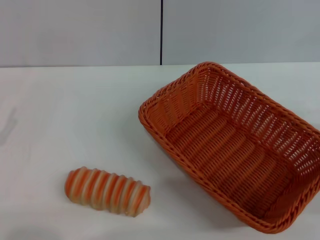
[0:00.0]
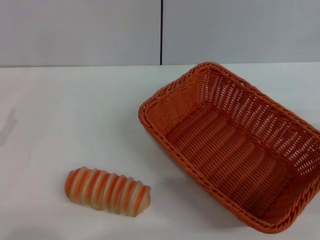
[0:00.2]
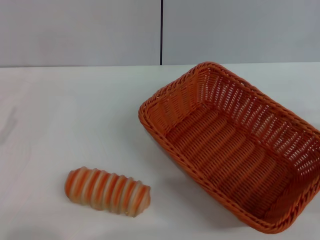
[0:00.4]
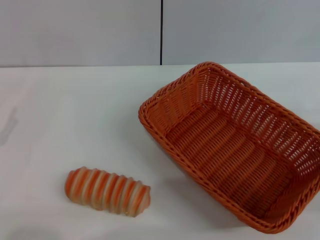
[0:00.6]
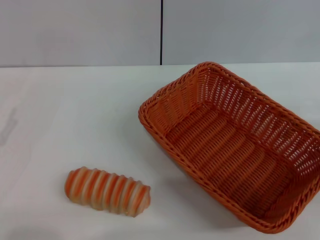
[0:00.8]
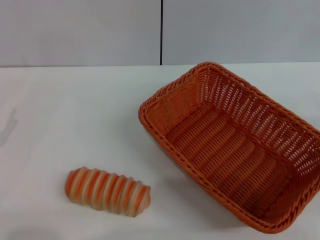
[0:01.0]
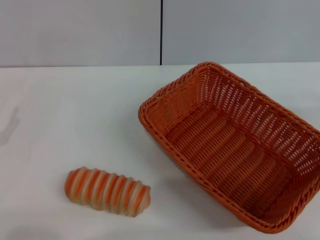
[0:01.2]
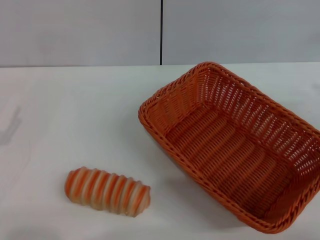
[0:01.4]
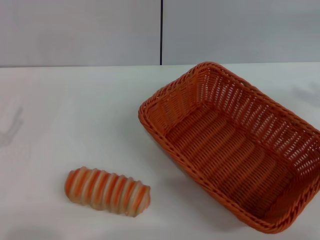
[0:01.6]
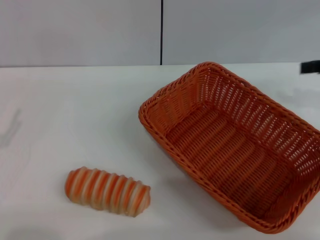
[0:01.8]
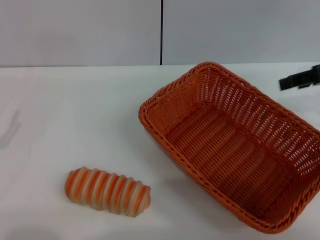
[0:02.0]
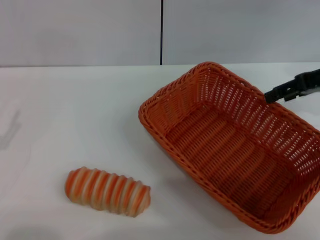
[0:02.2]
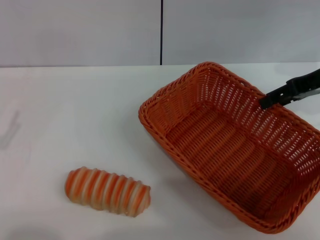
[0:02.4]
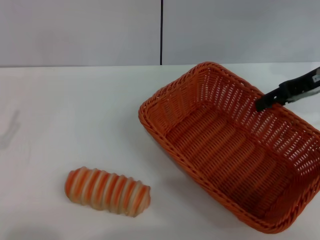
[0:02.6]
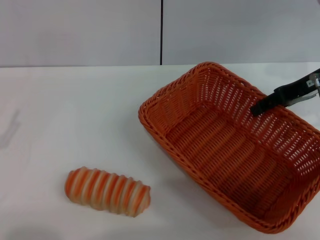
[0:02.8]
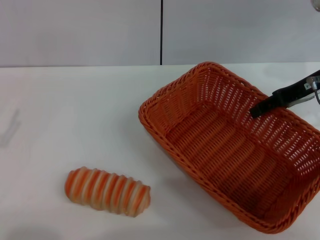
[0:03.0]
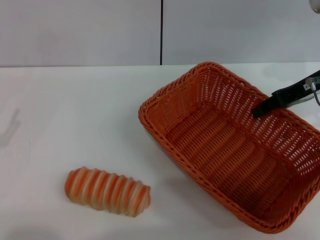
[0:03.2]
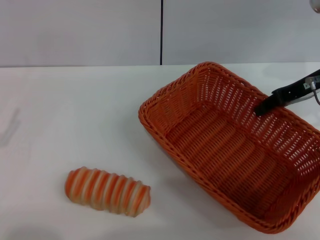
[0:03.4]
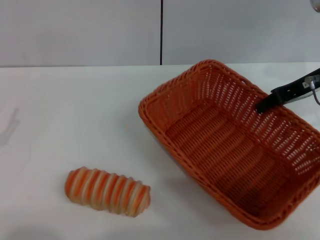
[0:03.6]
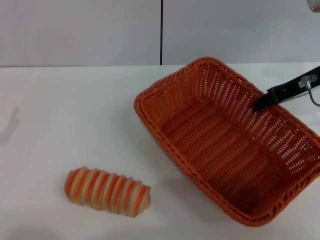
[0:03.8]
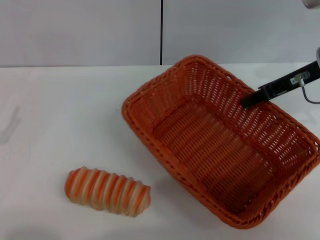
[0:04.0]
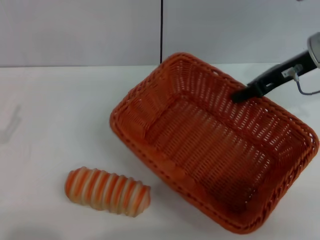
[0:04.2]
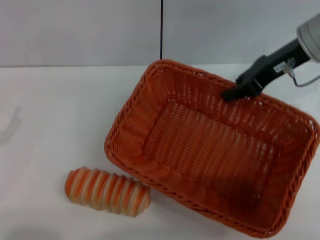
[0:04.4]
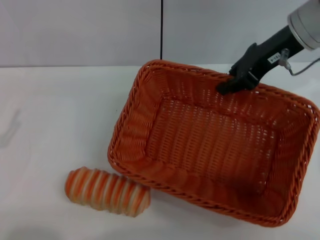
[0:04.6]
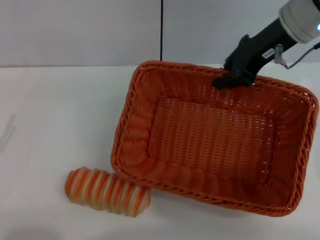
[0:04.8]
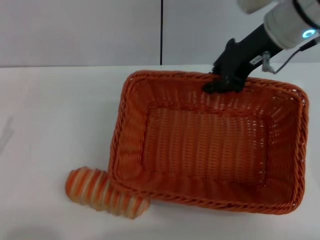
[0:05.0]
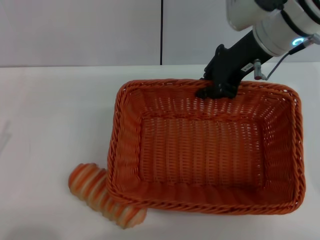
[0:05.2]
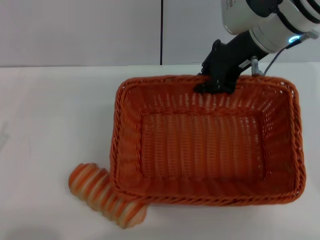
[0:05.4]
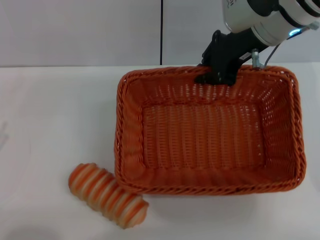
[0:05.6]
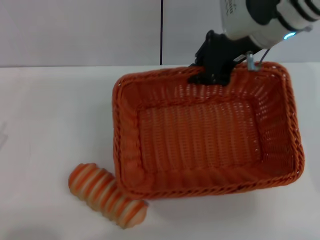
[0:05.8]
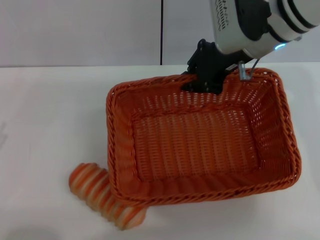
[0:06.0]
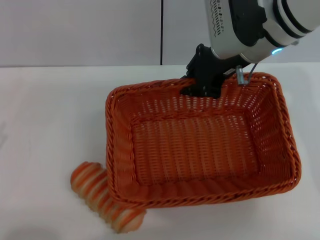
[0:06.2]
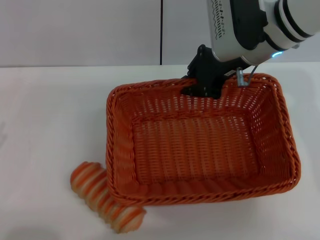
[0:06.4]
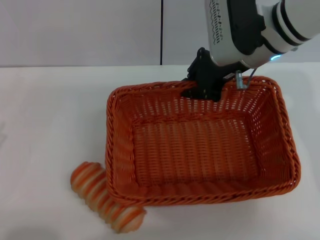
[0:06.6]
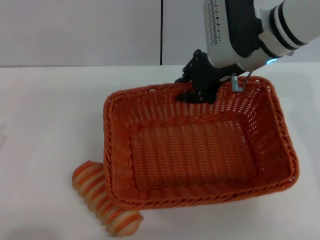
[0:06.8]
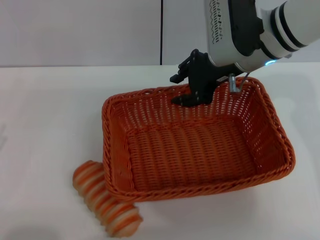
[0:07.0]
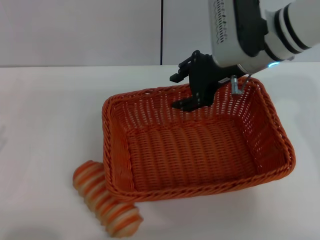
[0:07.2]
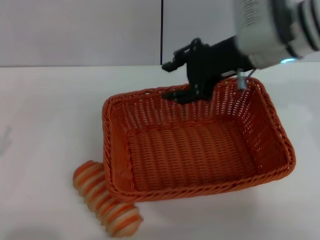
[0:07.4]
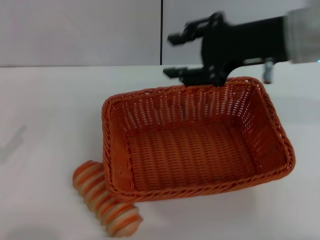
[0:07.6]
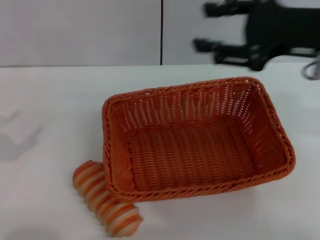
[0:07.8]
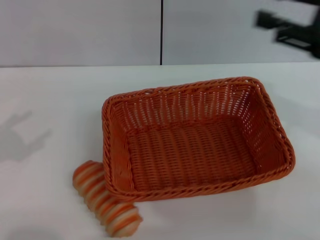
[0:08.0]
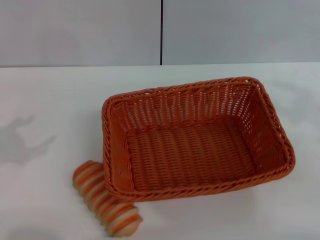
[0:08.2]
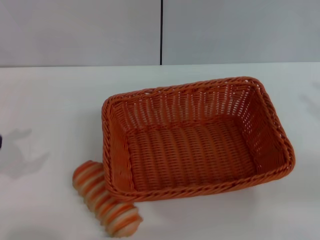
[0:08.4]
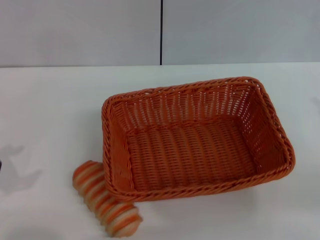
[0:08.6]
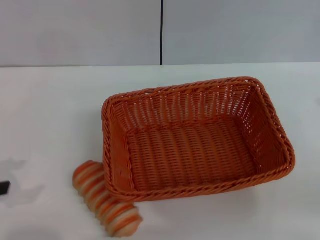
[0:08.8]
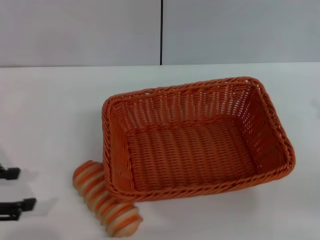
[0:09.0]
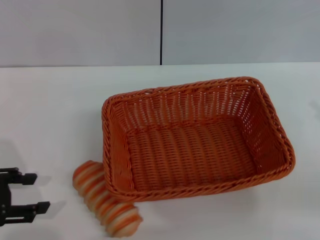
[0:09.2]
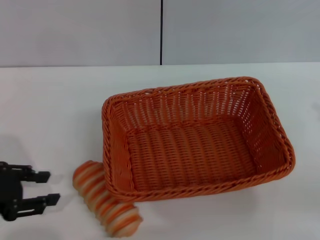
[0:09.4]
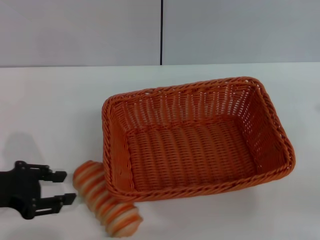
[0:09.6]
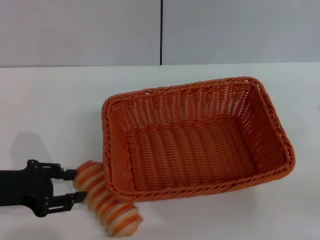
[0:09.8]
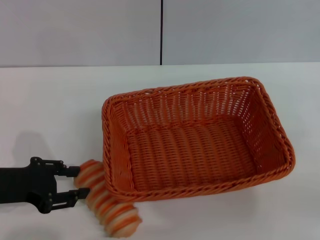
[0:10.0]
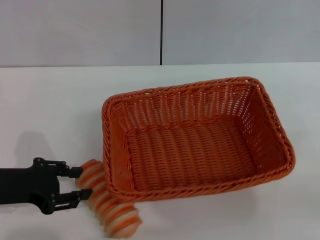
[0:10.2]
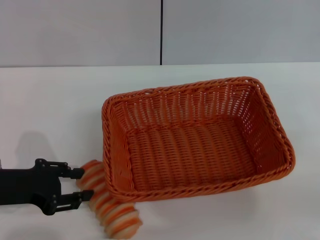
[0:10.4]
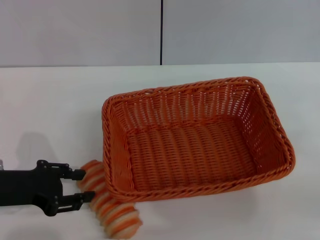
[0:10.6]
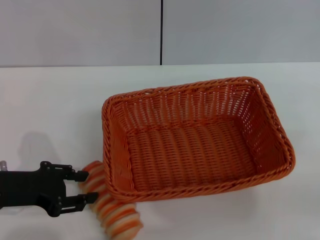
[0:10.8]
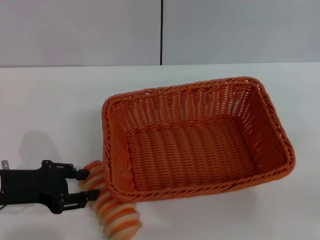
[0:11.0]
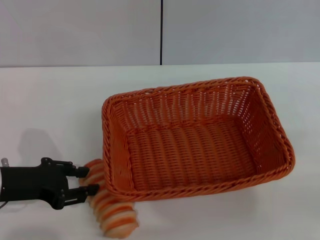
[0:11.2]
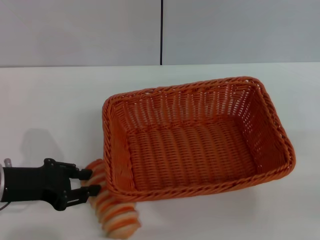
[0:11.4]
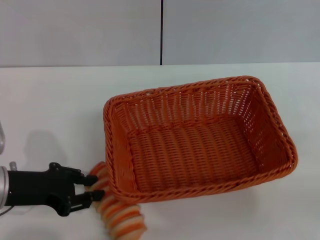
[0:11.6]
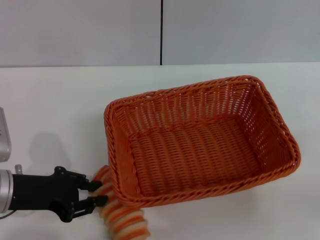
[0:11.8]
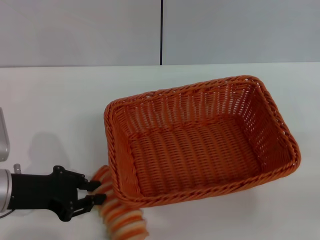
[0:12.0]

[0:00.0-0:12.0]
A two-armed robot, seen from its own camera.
Step, 0:00.0 to 0:04.4: Pick up the light basket with the right gripper.
Step, 0:04.6 to 0:07.6: Place the light basket in the center of view with the right gripper.
0:01.6 to 0:03.0: The right gripper moves to the left and forward, about 15 cm.
0:03.0 to 0:04.4: The right gripper is displaced to the left by some 5 cm, and closes.
0:04.4 to 0:06.0: The right gripper heads to the left, covering approximately 10 cm.
0:06.0 to 0:07.6: The right gripper travels backward and to the right by about 10 cm, and opens its fingers.
0:07.6 to 0:09.0: The right gripper shifts roughly 25 cm to the right, backward and downward. The left gripper travels upward by about 5 cm.
0:09.0 to 0:10.4: The left gripper travels to the right by approximately 5 cm.
0:10.4 to 0:12.0: The grippers stay close to where they were, moving slightly.

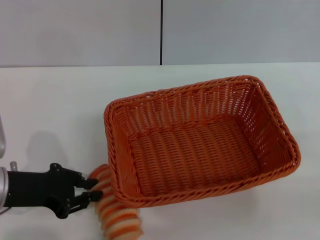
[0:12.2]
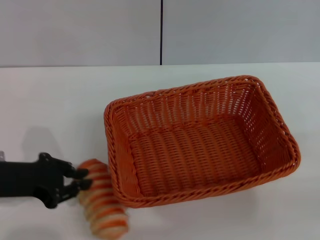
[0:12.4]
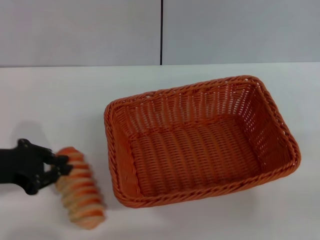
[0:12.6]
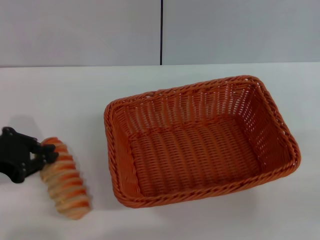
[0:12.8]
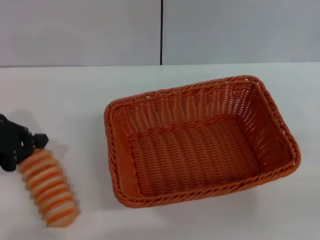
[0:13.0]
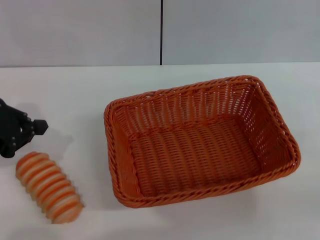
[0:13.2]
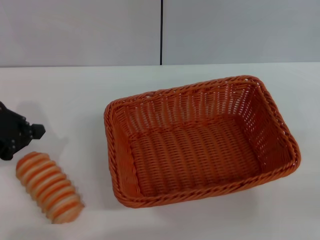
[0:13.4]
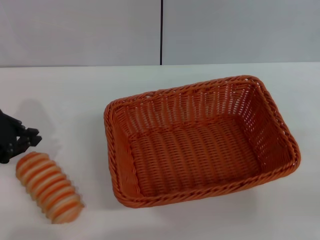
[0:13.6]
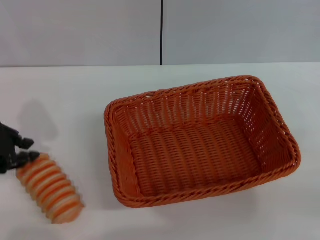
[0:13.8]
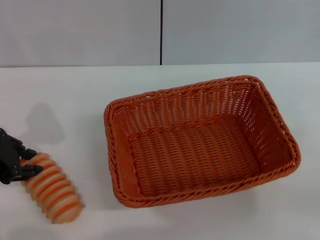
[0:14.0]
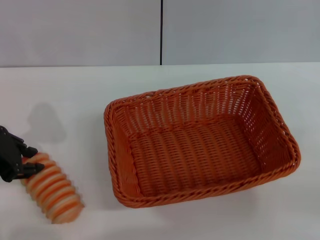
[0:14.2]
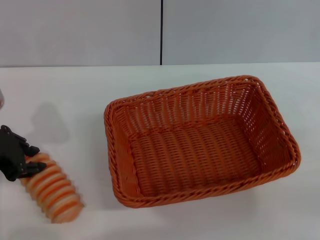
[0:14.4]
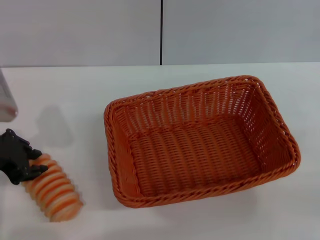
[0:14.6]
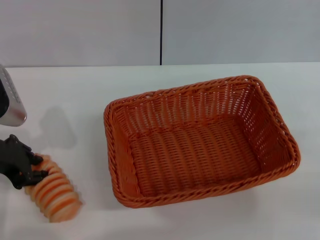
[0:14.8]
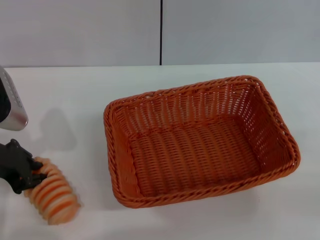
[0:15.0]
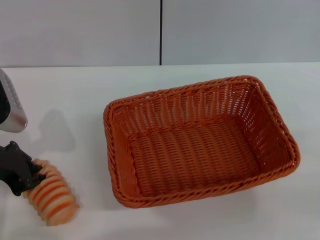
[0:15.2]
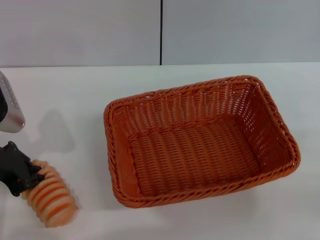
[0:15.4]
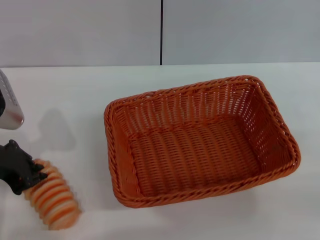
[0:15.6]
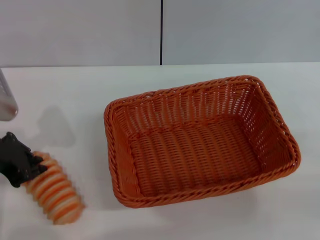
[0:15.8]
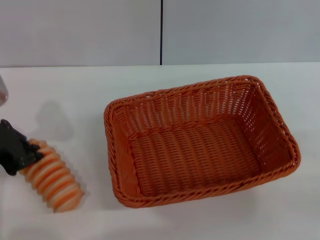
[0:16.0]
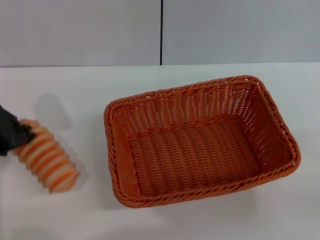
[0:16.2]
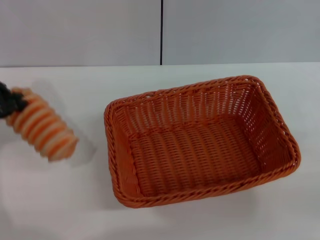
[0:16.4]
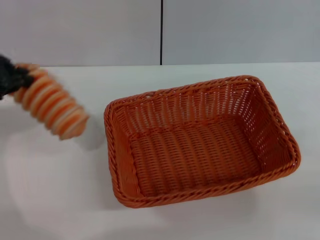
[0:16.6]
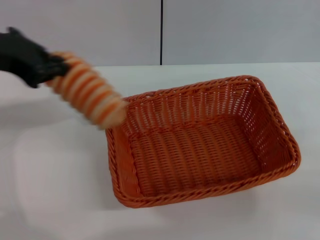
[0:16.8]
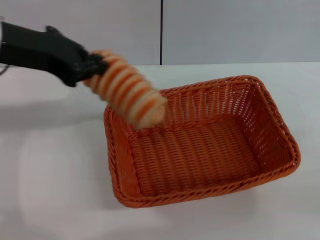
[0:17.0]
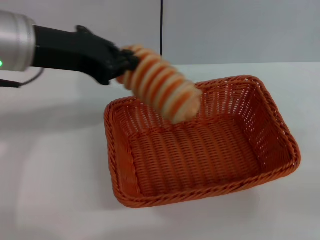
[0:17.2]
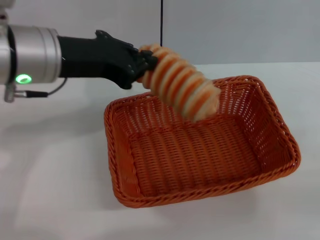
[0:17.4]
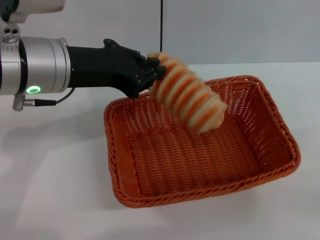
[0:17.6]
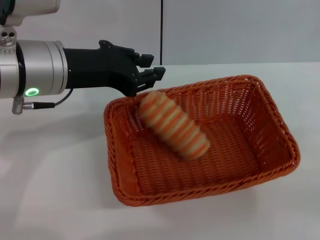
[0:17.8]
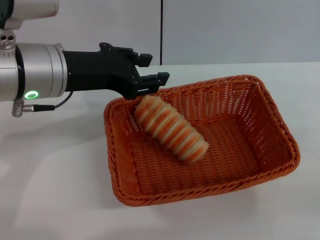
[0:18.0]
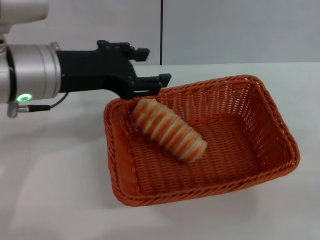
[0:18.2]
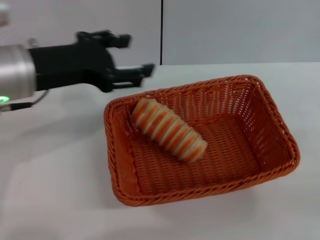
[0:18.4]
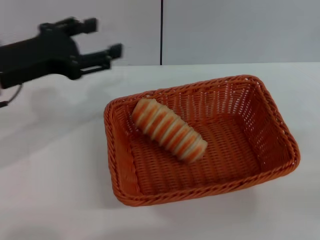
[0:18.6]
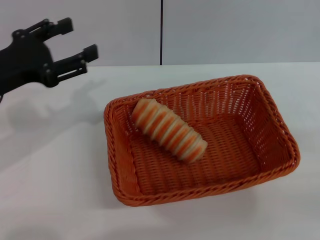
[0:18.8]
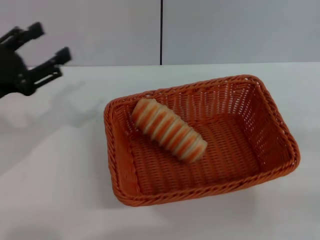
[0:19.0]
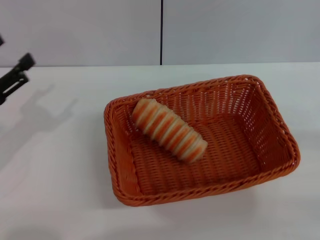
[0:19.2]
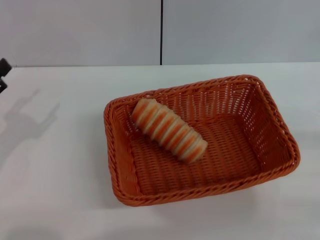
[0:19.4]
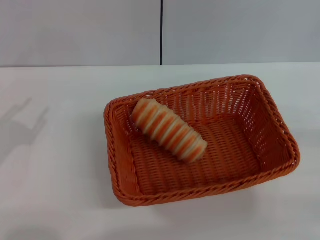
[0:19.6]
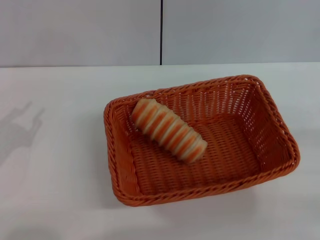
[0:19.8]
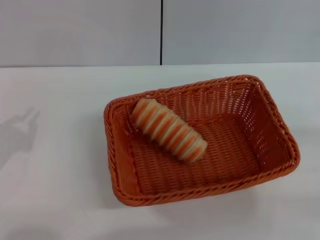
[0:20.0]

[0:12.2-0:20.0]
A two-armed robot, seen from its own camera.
Step, 0:12.2 to 0:16.2: Pick up the long bread with the left gripper.
Step, 0:16.4 to 0:18.4: Place the long bread into the light basket with the left gripper.
0:12.2 to 0:13.8: The left gripper goes roughly 10 cm upward.
0:13.8 to 0:15.4: The left gripper moves about 5 cm.
0:15.4 to 0:16.8: The left gripper is displaced upward by about 15 cm.
0:16.8 to 0:18.4: The left gripper moves downward, roughly 5 cm, and opens.
0:18.4 to 0:20.0: The left gripper moves to the left, downward and backward, approximately 20 cm, and closes its fingers.

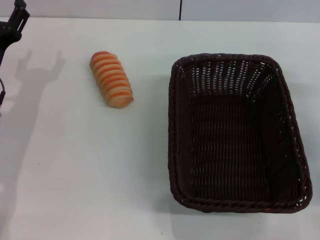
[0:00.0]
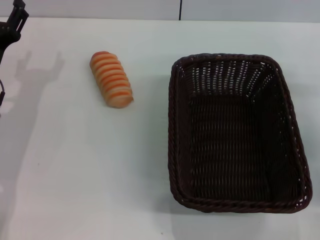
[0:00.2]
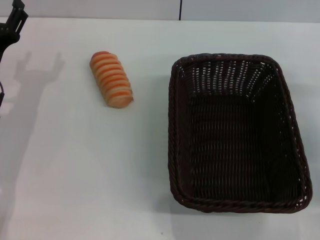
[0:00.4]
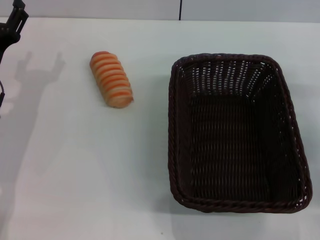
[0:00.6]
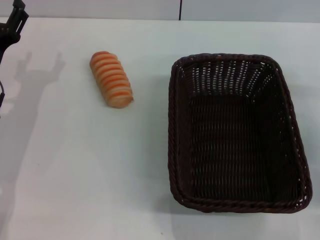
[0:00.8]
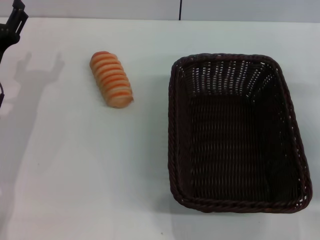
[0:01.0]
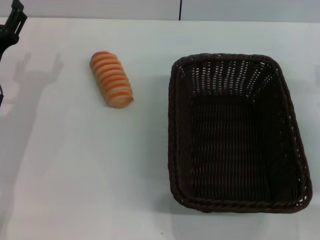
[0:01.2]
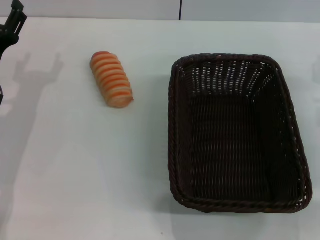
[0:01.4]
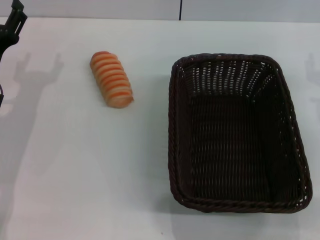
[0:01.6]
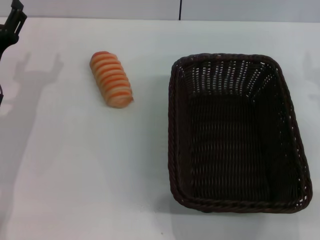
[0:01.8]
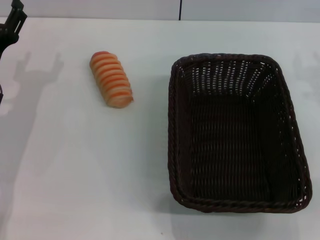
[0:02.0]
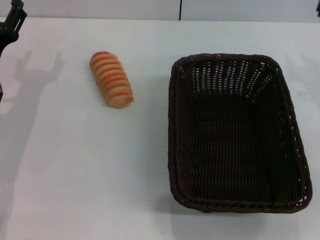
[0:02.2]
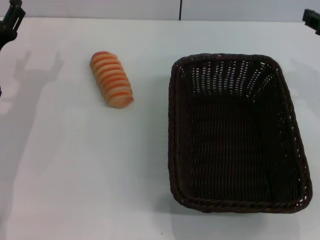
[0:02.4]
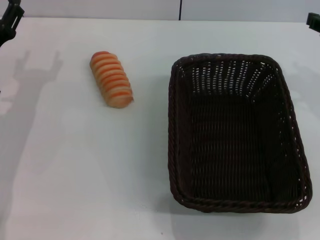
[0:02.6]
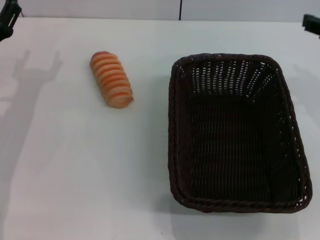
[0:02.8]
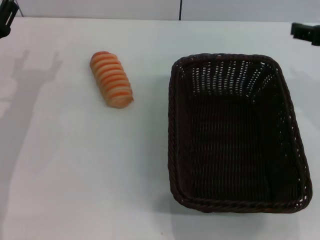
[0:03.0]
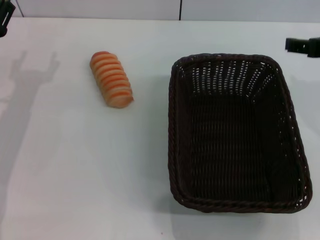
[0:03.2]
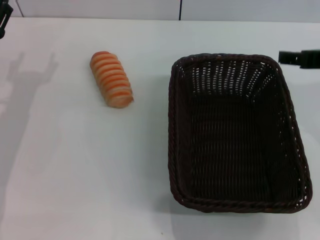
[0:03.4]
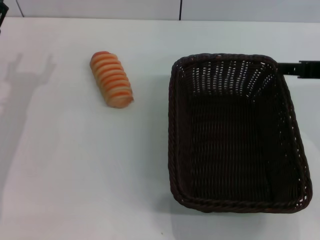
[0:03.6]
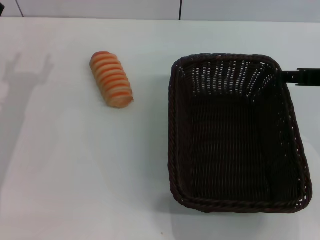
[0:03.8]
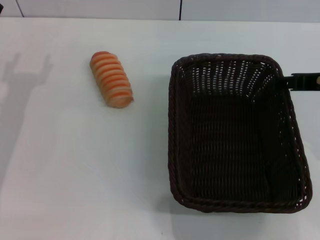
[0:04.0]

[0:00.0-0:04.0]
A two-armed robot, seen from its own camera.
0:00.0 to 0:01.4: The grippers stay close to where they were, moving slightly.
0:01.4 to 0:02.6: The right gripper heads upward, covering roughly 10 cm.
0:02.6 to 0:04.0: The right gripper opens up.
